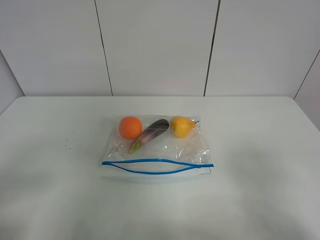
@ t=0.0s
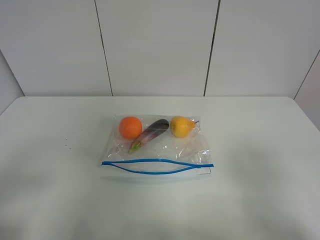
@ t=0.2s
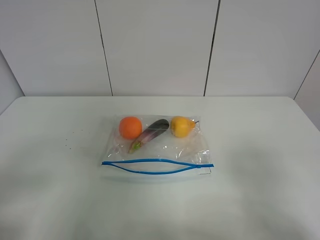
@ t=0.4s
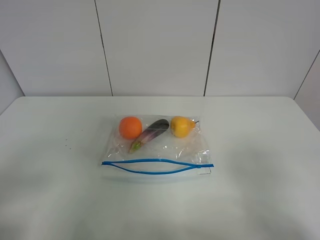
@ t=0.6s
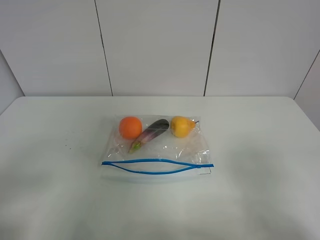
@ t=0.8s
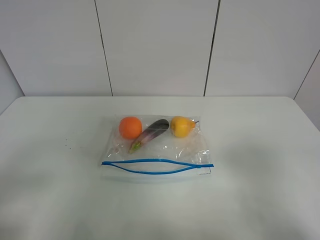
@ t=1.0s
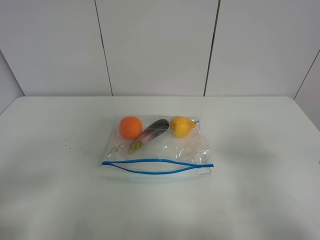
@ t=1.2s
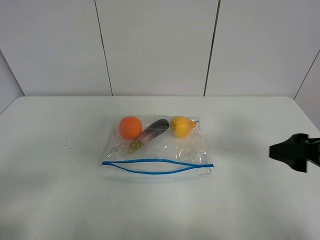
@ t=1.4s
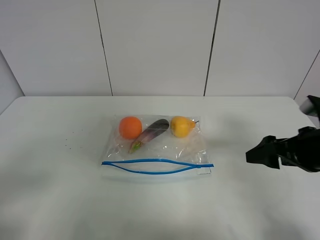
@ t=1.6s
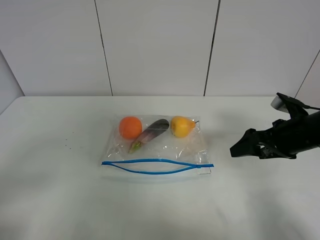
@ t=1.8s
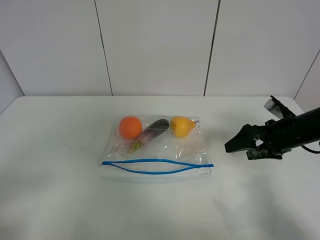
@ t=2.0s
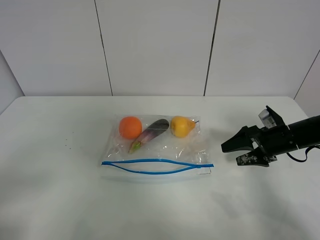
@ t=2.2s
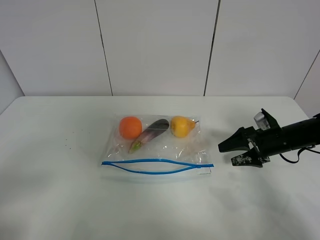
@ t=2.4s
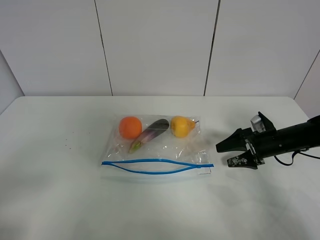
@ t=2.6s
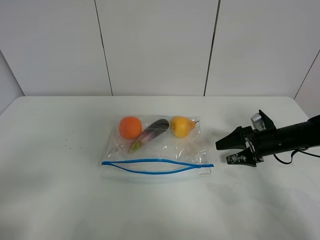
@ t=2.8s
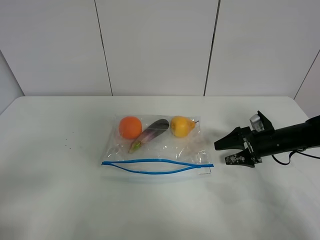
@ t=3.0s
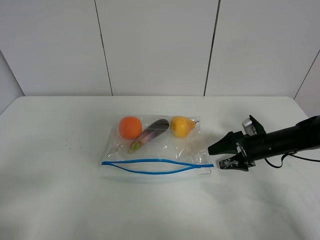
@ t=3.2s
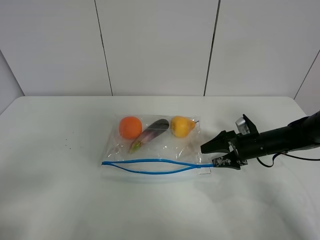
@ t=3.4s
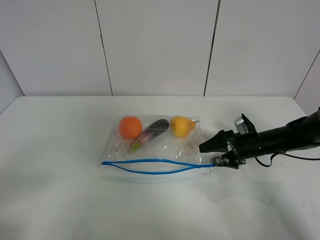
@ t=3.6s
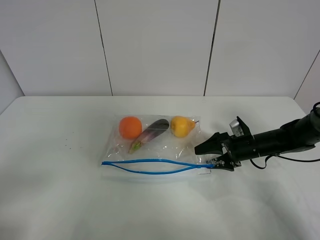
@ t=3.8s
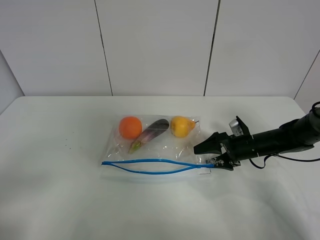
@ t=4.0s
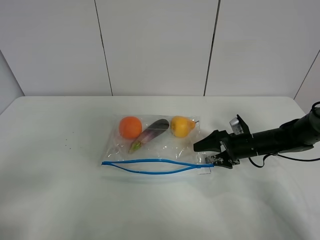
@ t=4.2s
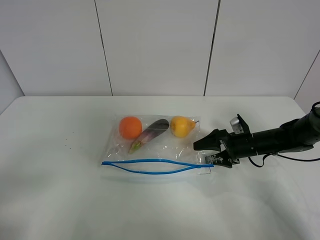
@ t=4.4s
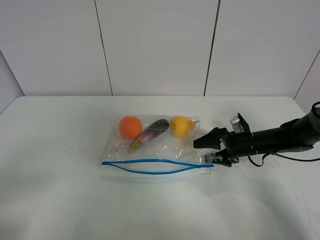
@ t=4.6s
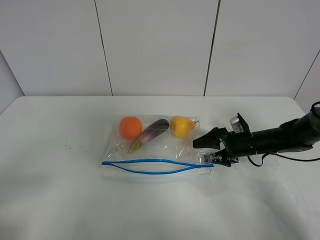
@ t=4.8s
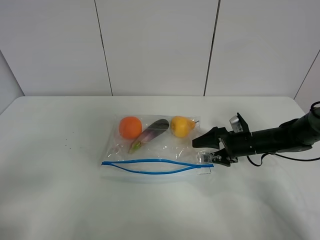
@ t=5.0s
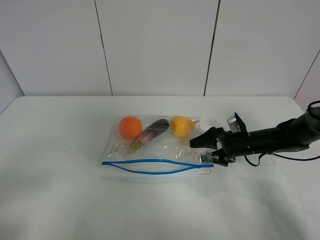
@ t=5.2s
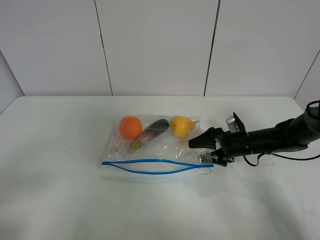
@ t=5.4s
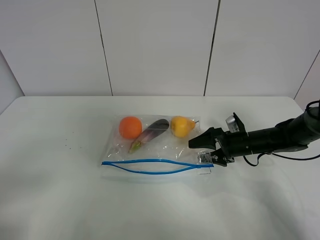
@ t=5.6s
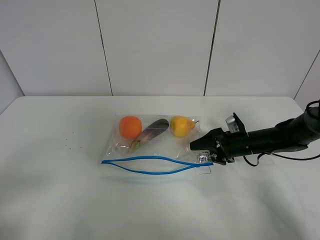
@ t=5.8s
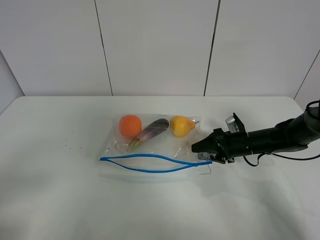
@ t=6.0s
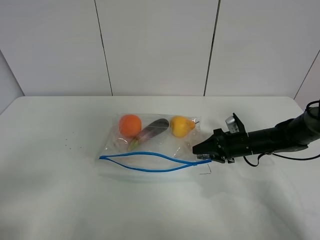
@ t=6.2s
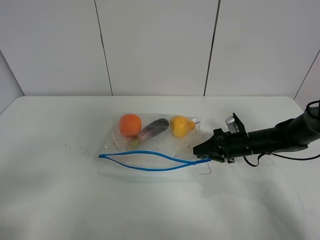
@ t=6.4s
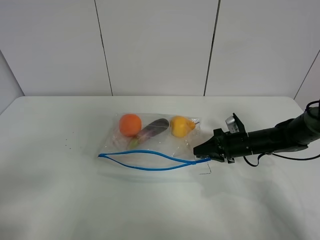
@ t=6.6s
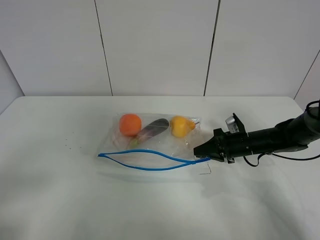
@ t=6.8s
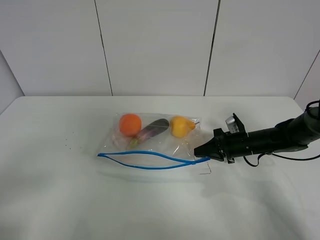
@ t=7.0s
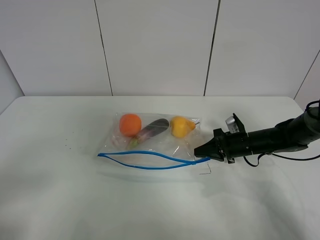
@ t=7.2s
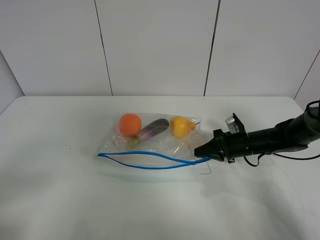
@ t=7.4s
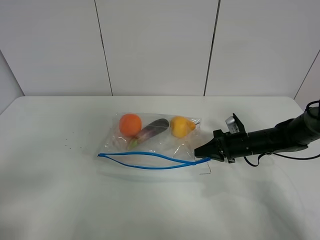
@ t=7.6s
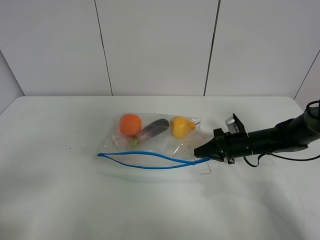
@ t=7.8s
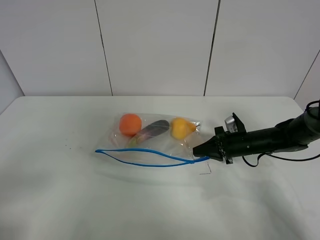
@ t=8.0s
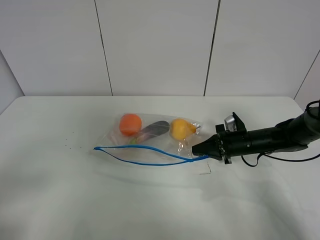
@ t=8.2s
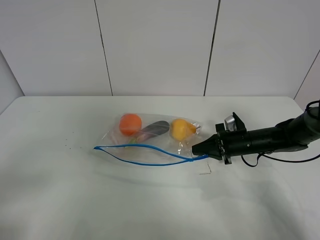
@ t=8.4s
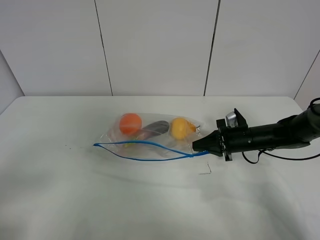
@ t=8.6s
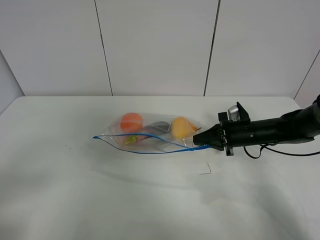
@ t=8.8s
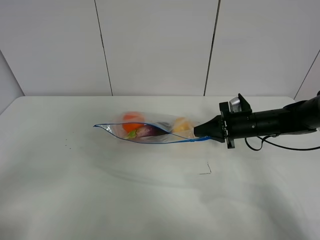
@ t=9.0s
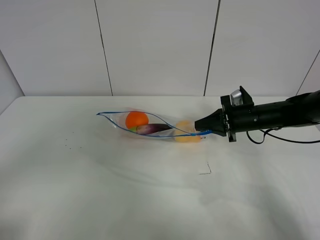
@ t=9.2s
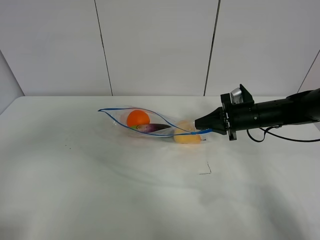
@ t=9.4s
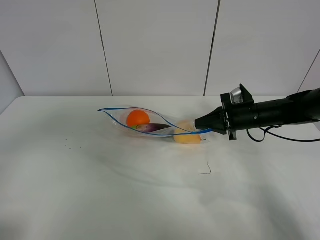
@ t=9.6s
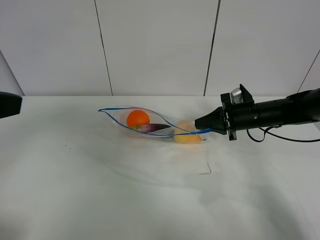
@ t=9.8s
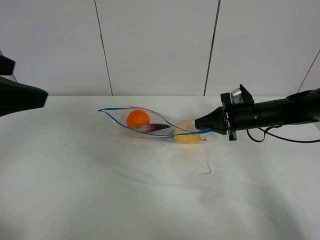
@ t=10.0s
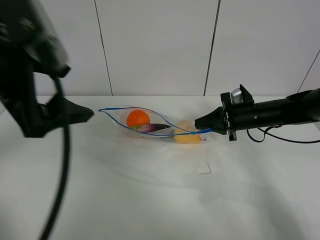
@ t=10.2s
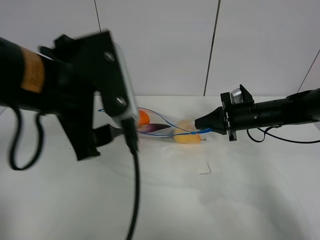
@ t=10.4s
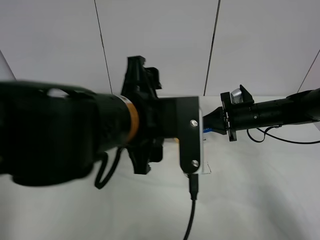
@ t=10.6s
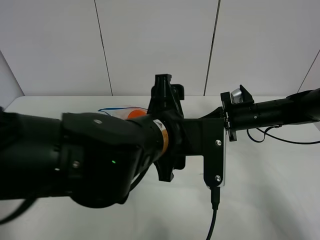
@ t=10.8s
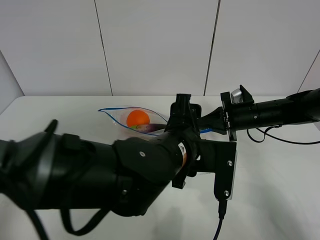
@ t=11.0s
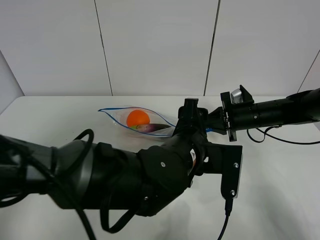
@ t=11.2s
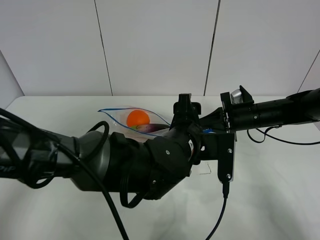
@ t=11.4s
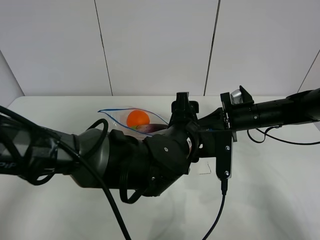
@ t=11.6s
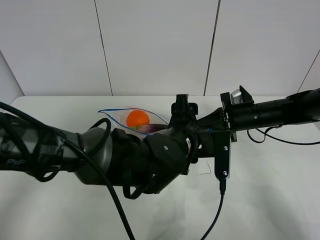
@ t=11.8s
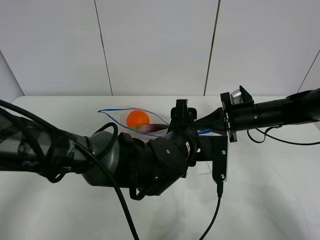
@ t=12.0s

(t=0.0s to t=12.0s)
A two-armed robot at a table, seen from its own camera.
Step, t=0.0s - t=7.4s: Grasp the fruit bag with right gripper.
Step, t=7.6s - t=9.4s: Lift the fruit bag with your right gripper.
t=0.0s - t=1.6s: The right gripper travels forward by about 20 cm.
t=1.6s - t=3.0s: The right gripper shifts about 20 cm downward and forward.
t=3.0s - t=4.4s: The right gripper moves roughly 5 cm.
t=4.4s - t=6.0s: The right gripper closes up.
t=6.0s - t=7.6s: The right gripper closes its fingers.
t=7.6s - t=9.0s: The right gripper goes about 5 cm upward.
t=9.0s - t=10.4s: The left gripper goes approximately 25 cm to the right and forward.
t=10.4s - t=12.0s: The left gripper travels downward and to the right by some 25 cm.

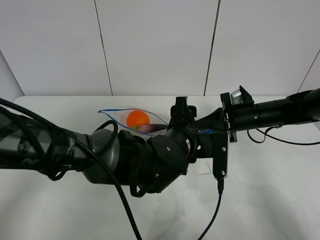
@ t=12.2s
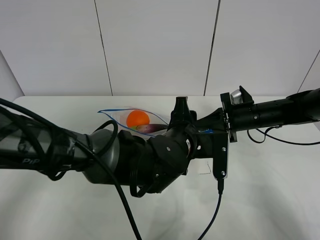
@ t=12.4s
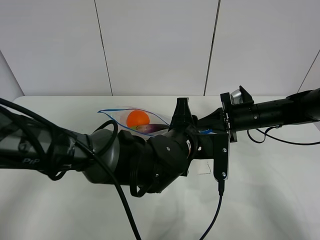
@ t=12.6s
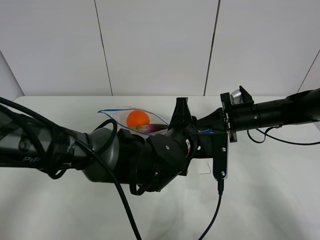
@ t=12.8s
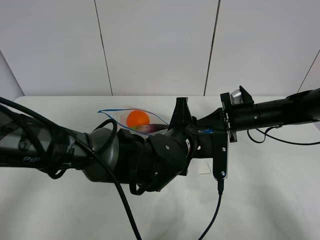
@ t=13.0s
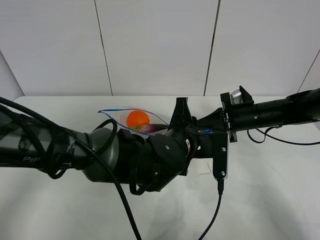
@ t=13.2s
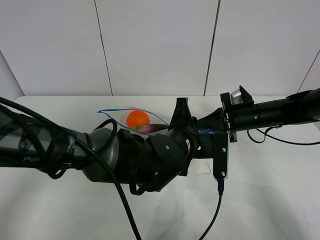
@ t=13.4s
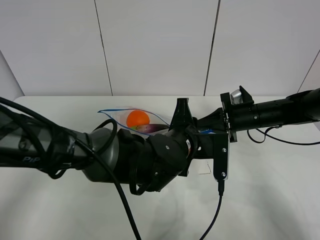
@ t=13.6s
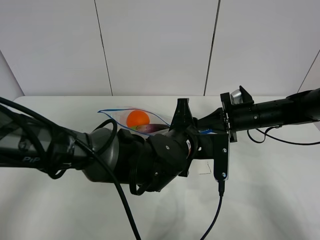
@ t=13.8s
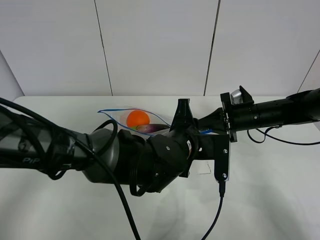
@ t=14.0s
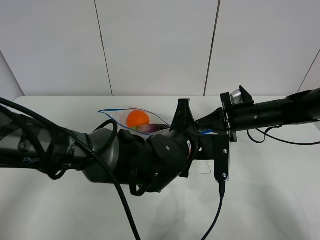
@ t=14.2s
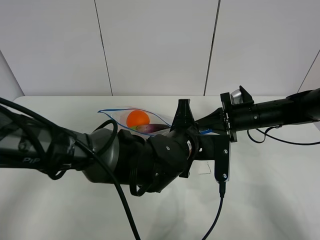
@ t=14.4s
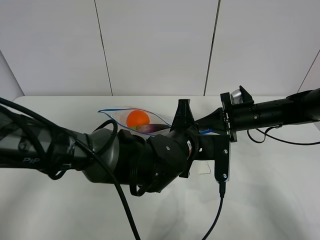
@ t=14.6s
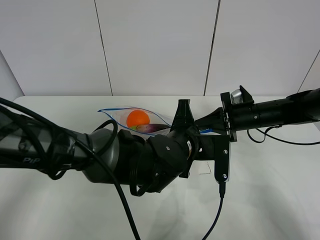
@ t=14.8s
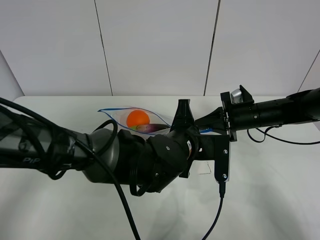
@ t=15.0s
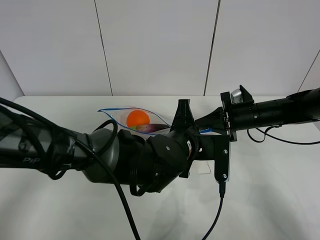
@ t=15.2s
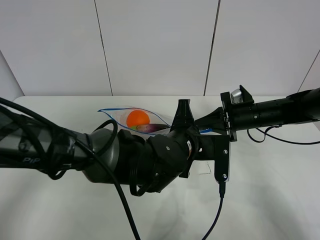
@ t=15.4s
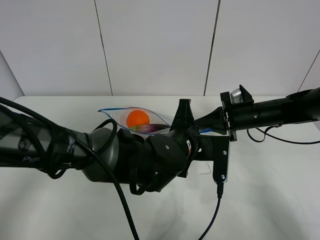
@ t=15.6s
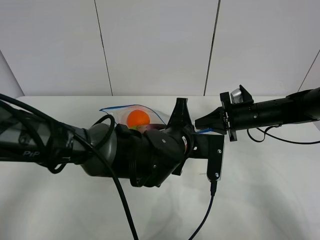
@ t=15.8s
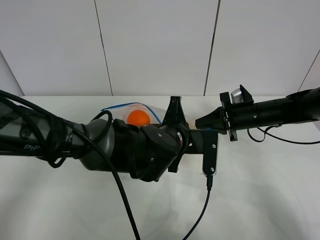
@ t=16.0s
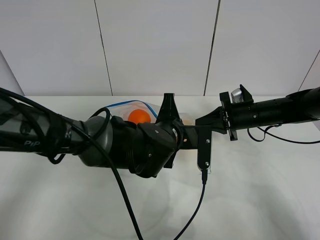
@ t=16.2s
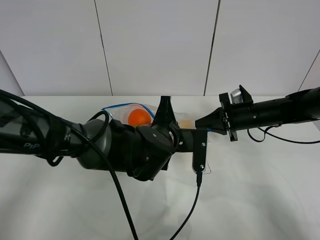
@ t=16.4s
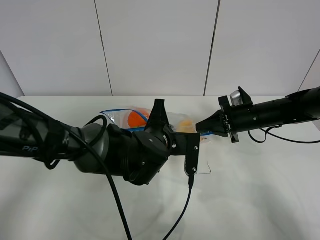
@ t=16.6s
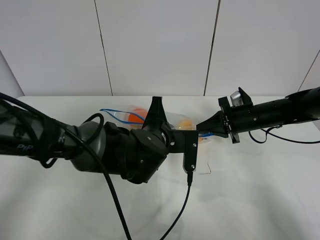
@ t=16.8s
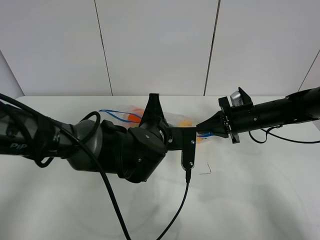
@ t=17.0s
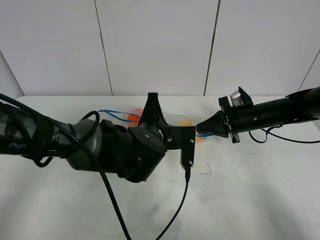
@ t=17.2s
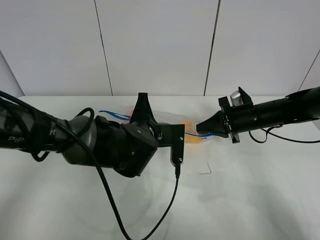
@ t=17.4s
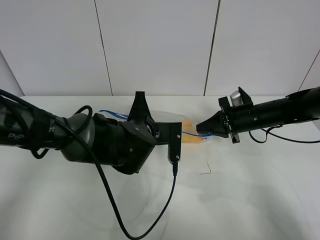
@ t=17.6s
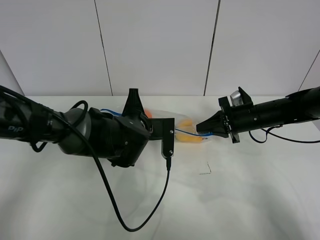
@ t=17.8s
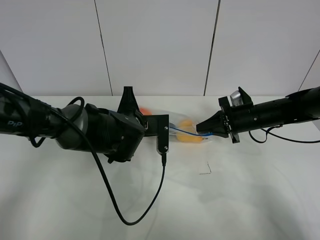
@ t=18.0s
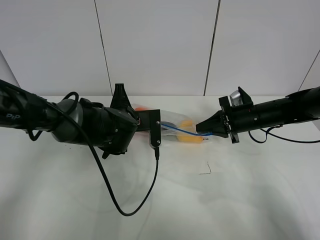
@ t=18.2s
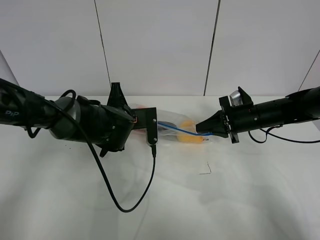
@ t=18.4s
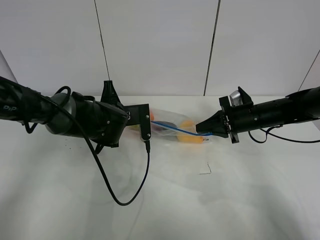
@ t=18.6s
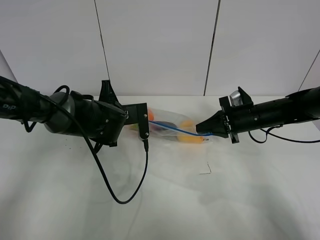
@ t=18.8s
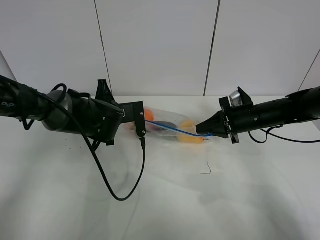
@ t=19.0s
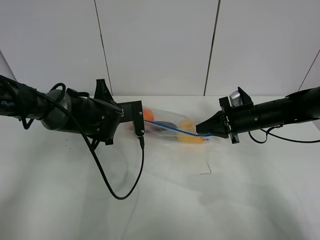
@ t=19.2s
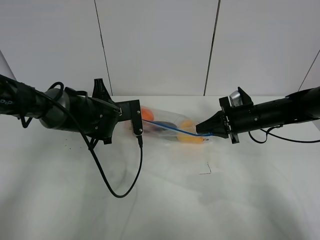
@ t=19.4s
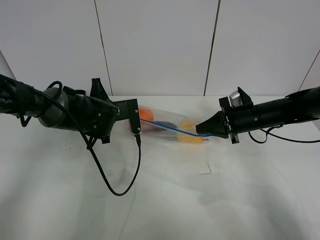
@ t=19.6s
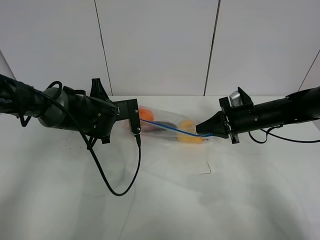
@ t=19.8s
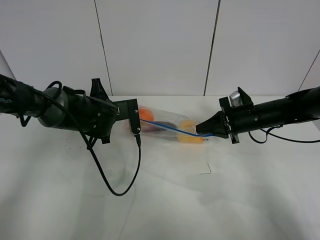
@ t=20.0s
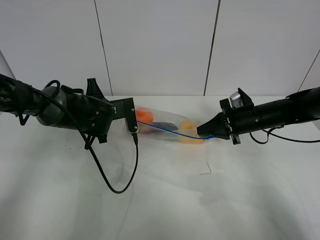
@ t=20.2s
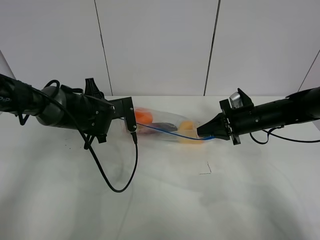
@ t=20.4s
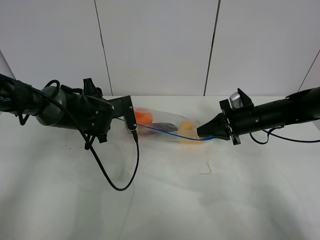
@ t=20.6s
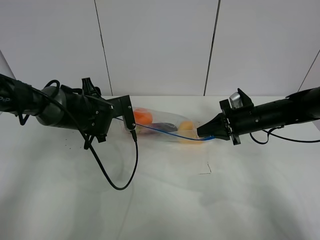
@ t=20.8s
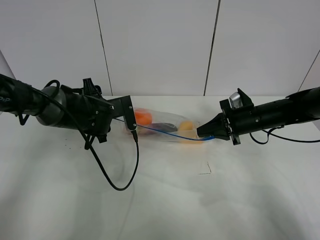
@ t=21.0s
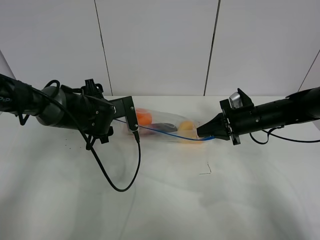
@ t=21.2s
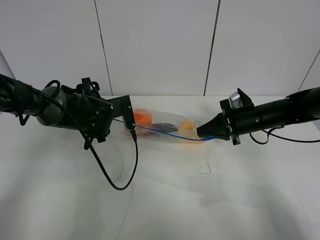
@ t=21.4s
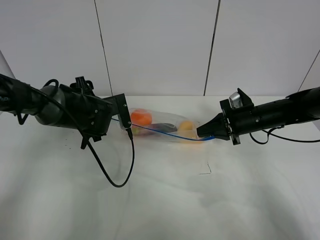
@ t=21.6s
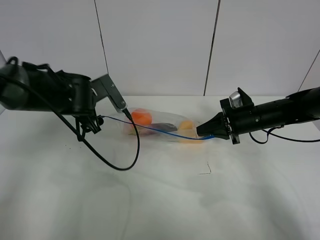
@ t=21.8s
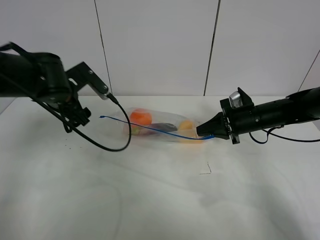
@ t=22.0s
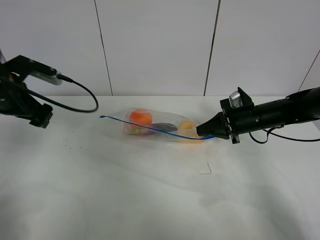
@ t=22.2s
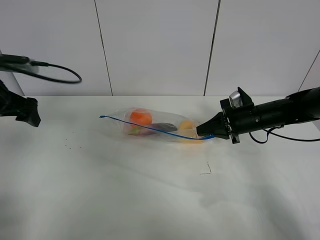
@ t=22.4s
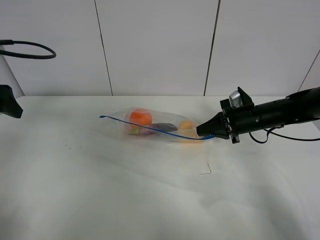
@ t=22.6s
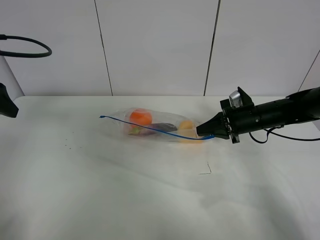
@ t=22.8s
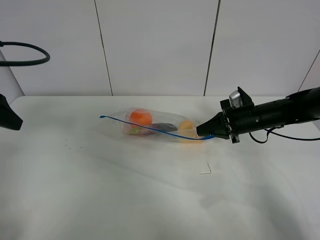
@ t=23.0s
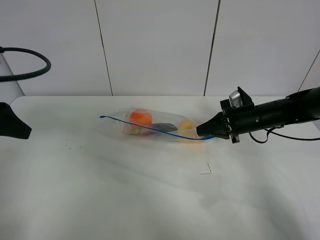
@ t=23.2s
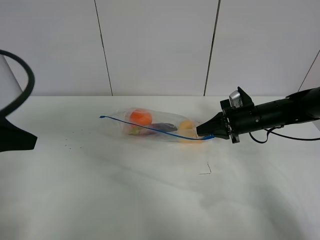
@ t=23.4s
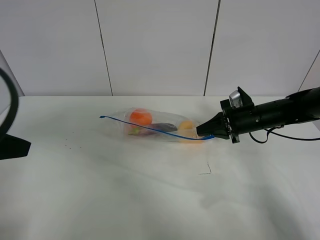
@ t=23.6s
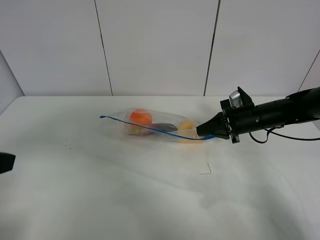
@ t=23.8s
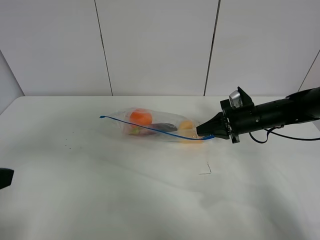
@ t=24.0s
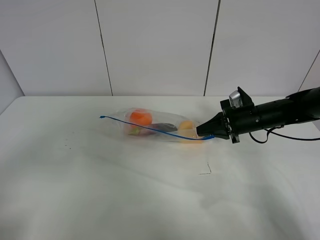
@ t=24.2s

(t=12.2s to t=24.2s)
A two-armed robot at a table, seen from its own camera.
Step, t=12.2s - t=20.6s: Pull the fruit bag with left gripper.
t=12.2s - t=13.8s: The left gripper closes up.
t=13.8s - t=15.2s: The left gripper closes.
t=15.2s - t=16.6s: The left gripper shifts by roughly 5 cm.
t=16.6s - t=18.2s: The left gripper is displaced to the left and forward by some 10 cm.
t=18.2s - t=19.8s: The left gripper changes place by roughly 5 cm.
t=19.8s - t=21.2s: The left gripper opens its fingers.
t=21.2s - t=22.6s: The left gripper goes roughly 25 cm to the left and upward.
t=22.6s - t=24.2s: The left gripper heads backward, covering about 20 cm.
